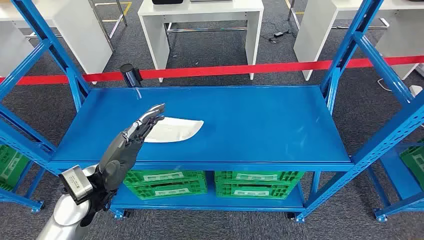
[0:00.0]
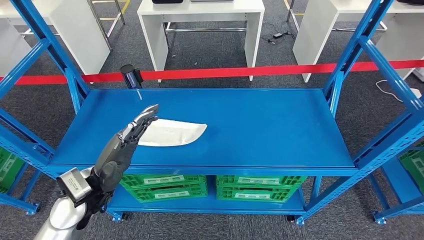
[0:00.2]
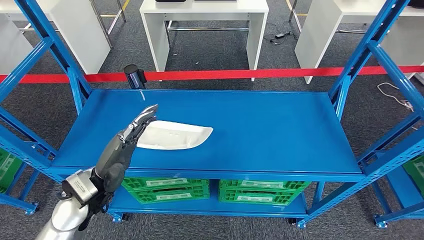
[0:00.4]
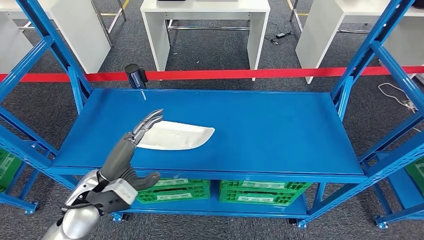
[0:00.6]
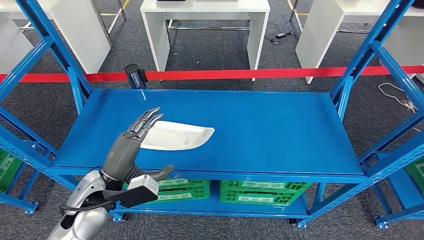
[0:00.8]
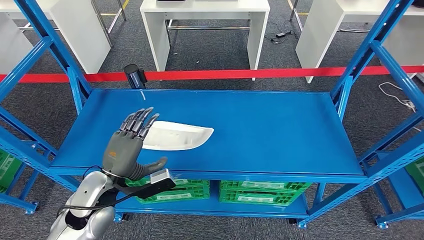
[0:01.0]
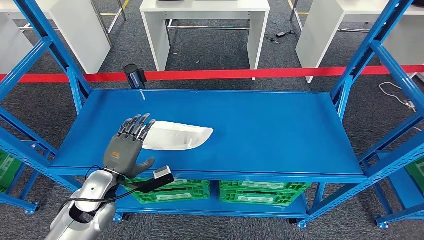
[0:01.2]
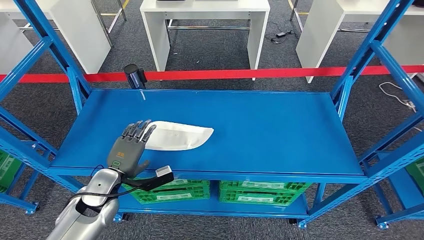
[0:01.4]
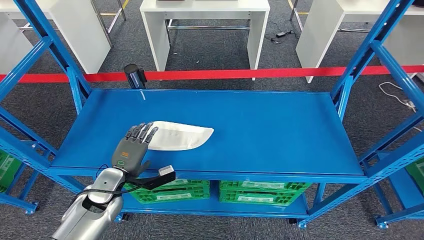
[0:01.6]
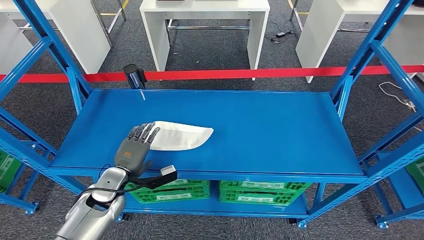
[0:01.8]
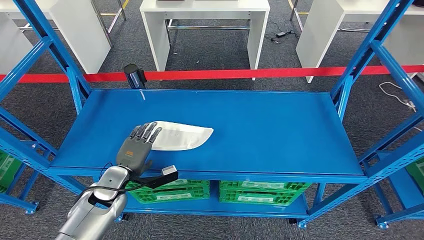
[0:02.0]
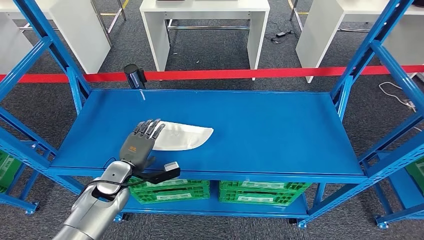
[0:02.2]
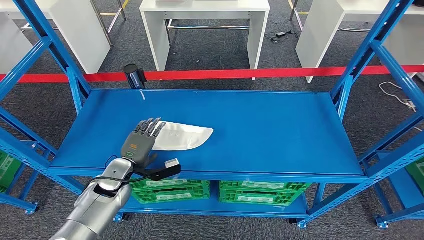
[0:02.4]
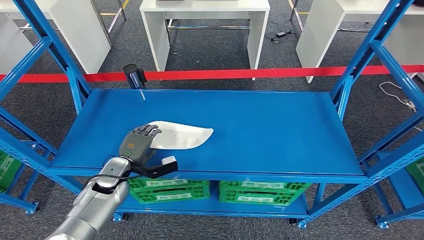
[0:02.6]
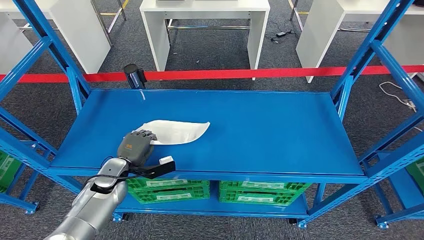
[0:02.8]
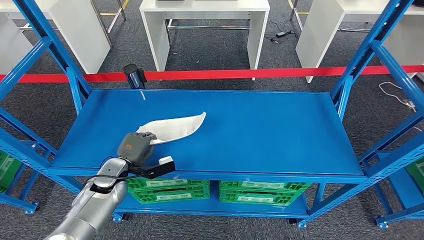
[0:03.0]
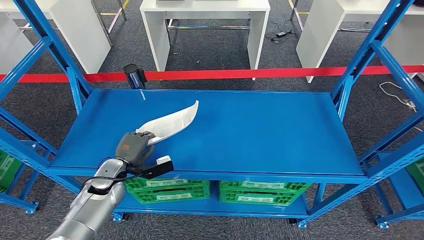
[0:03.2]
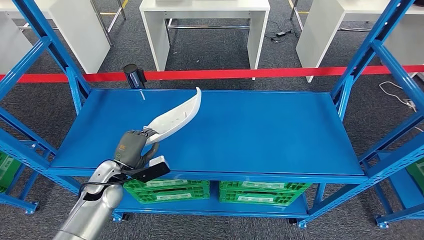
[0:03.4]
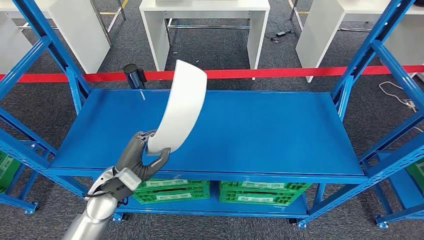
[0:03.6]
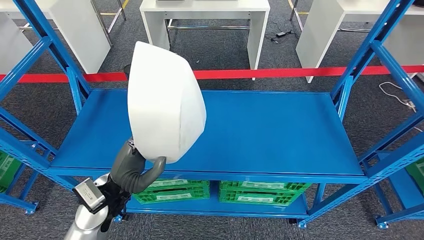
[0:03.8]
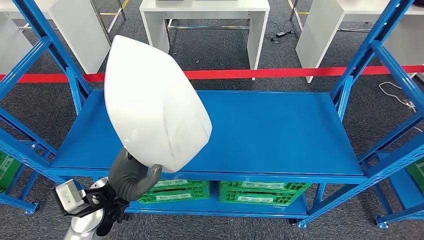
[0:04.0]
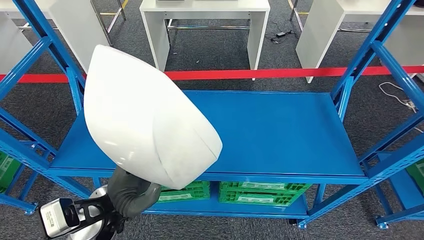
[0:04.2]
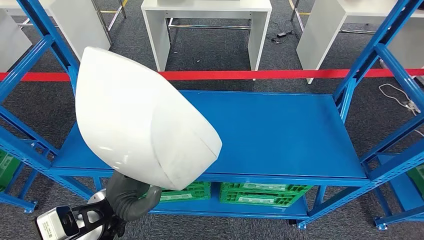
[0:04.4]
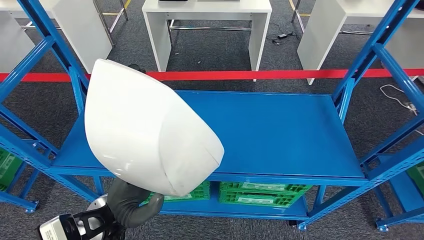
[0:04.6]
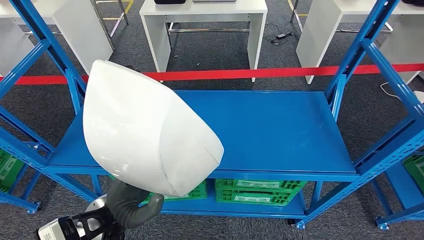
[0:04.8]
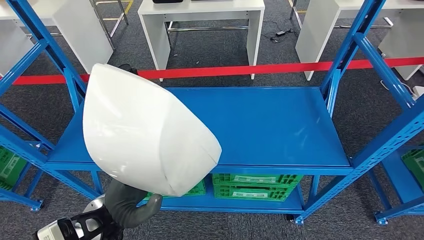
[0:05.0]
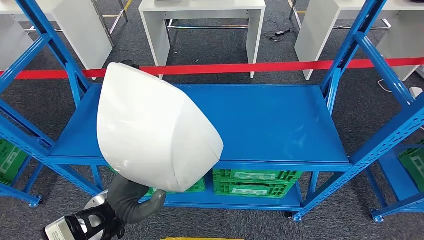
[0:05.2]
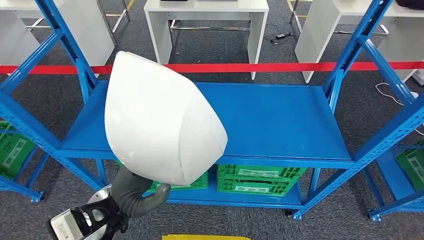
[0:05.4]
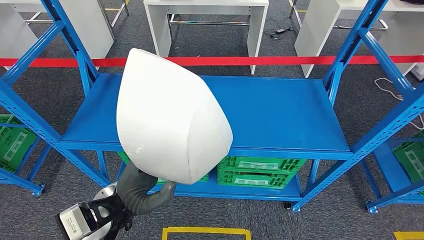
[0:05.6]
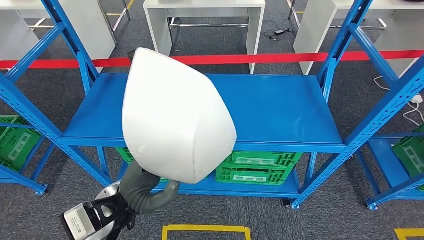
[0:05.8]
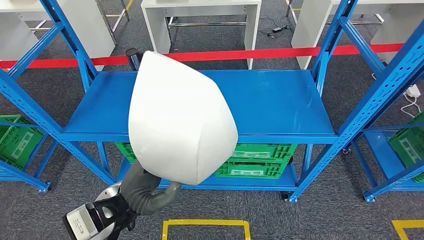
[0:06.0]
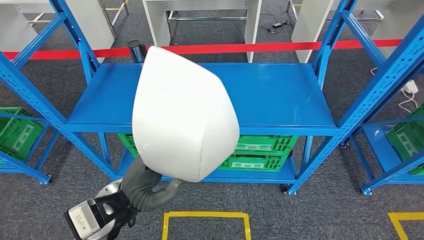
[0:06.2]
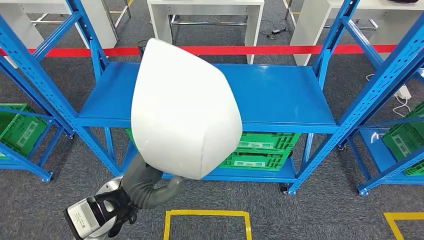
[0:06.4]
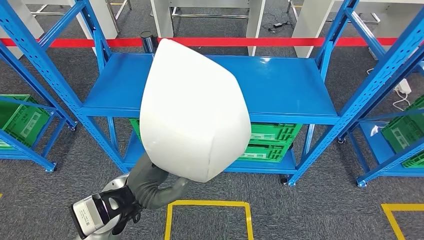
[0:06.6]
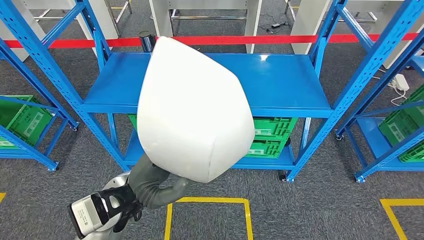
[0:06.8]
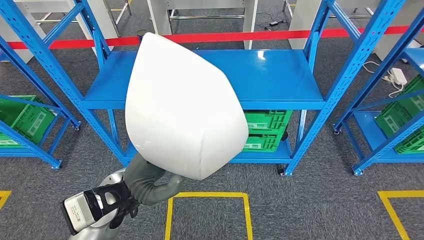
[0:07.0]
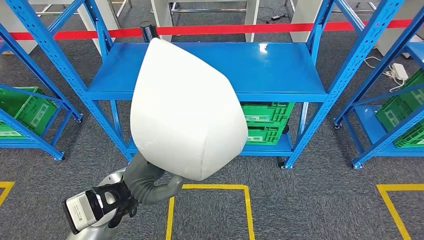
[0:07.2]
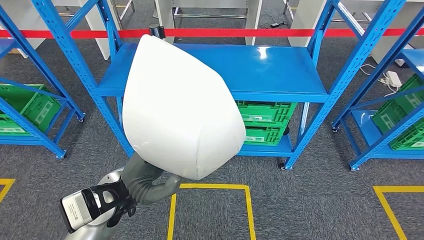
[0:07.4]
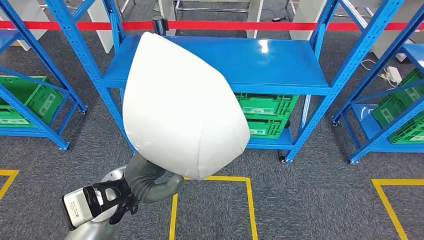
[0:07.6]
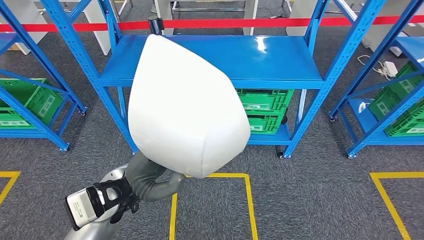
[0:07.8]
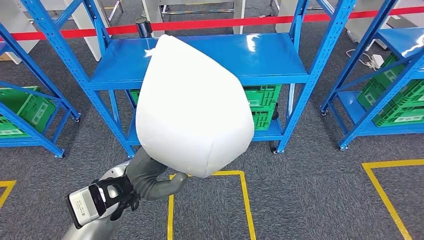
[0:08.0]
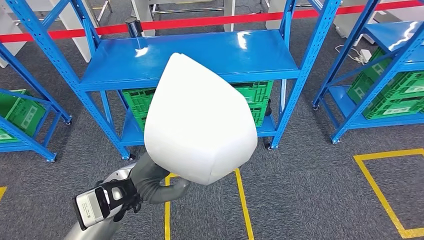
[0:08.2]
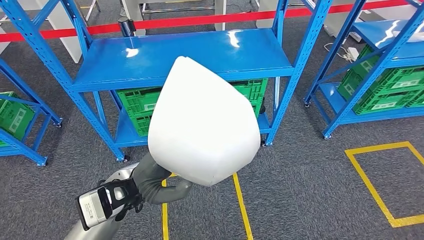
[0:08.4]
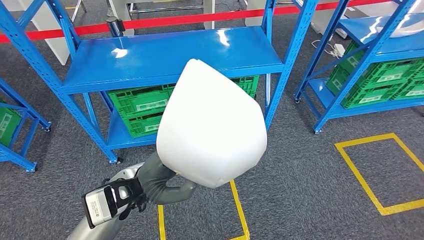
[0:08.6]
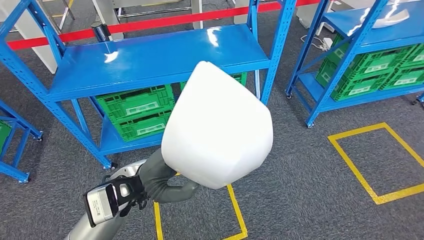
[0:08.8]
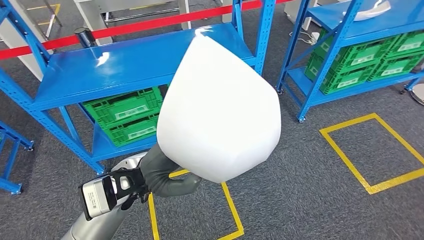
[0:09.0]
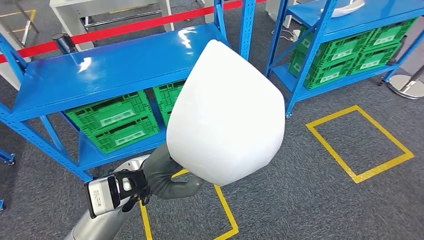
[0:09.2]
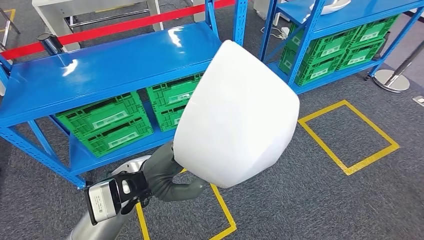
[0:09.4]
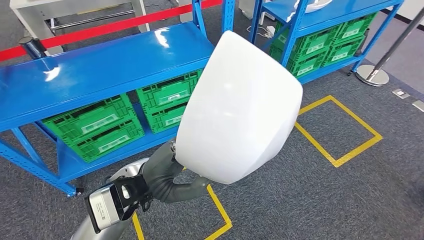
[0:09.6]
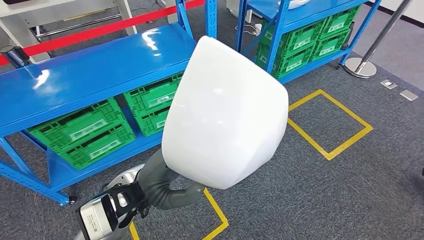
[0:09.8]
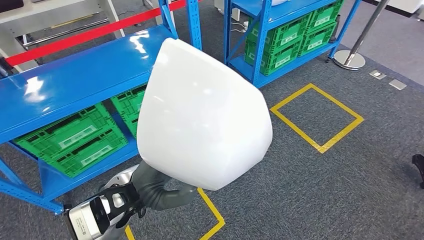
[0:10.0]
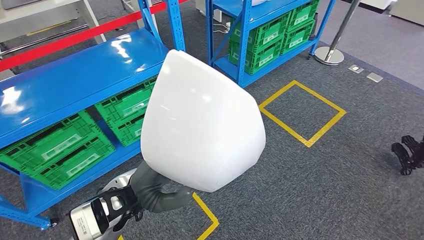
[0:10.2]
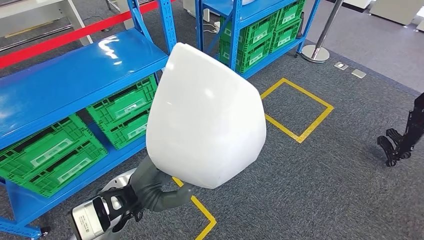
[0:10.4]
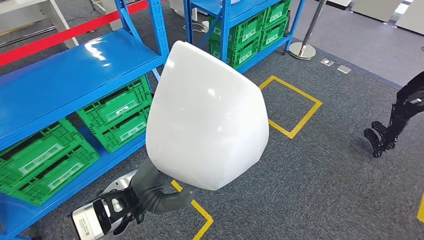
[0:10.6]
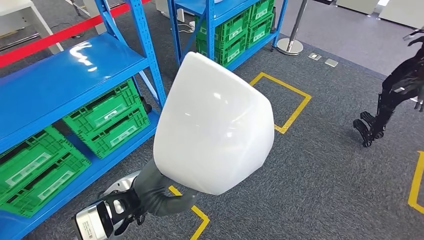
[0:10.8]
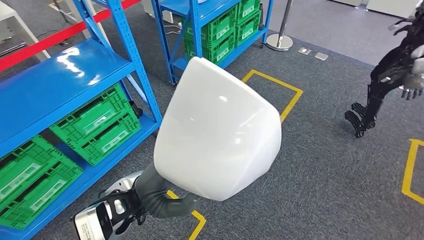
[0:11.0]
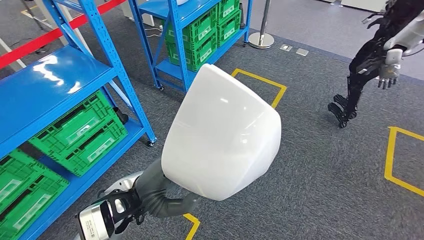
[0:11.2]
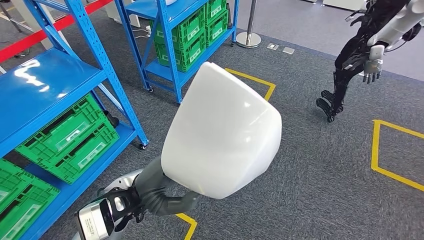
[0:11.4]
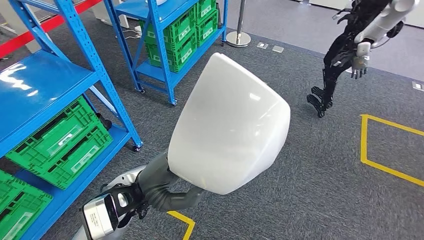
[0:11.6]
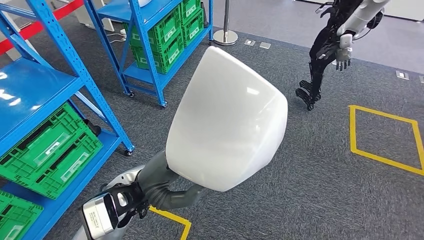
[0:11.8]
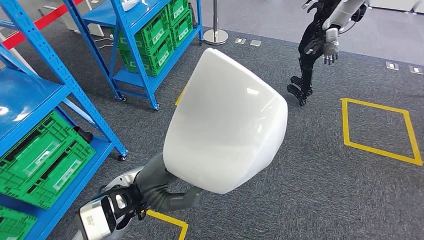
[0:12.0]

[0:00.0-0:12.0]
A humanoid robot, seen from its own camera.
Step, 0:00.0 to 0:05.4: Pick up the small component from the shelf.
0:01.6 to 0:03.0: The left hand changes place by approximately 5 cm.

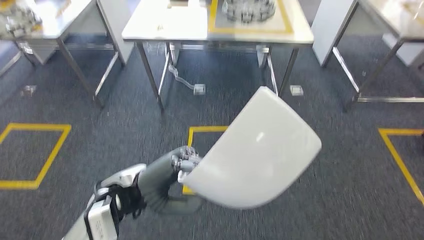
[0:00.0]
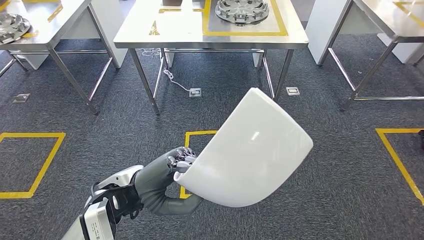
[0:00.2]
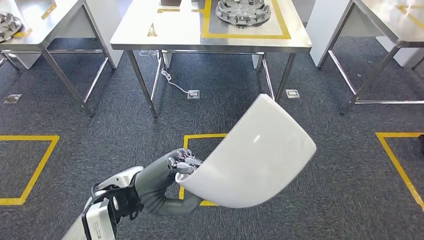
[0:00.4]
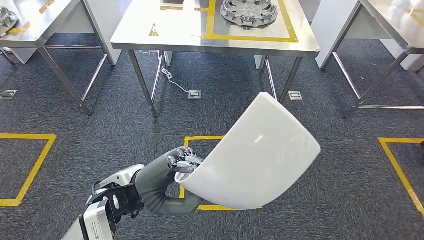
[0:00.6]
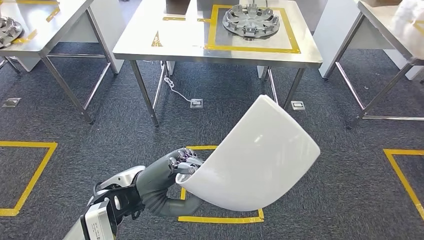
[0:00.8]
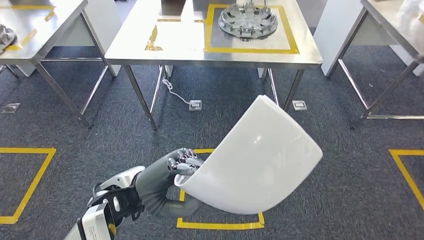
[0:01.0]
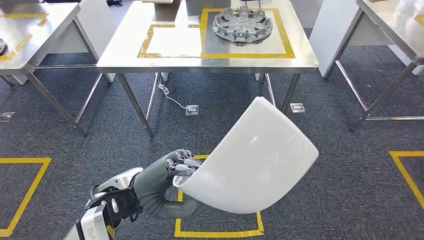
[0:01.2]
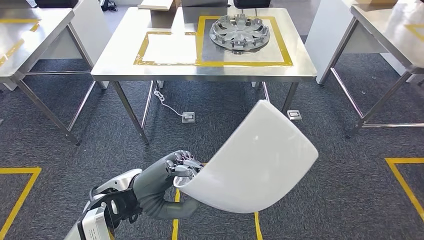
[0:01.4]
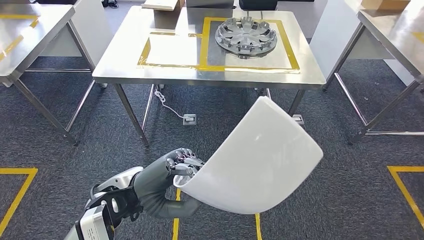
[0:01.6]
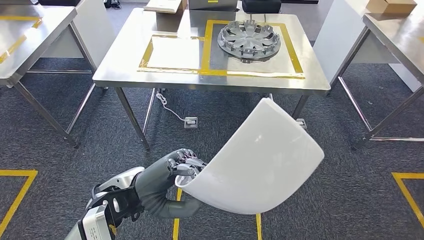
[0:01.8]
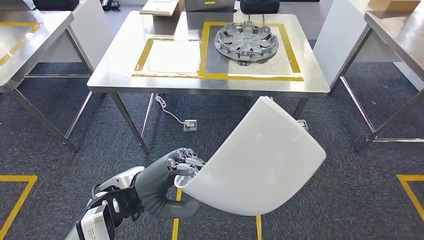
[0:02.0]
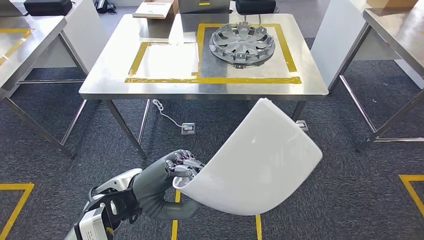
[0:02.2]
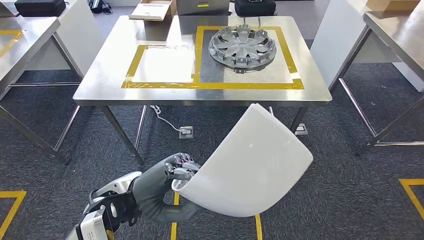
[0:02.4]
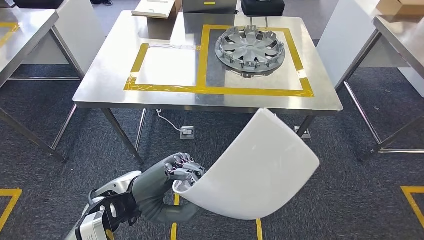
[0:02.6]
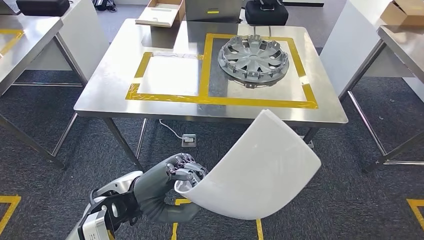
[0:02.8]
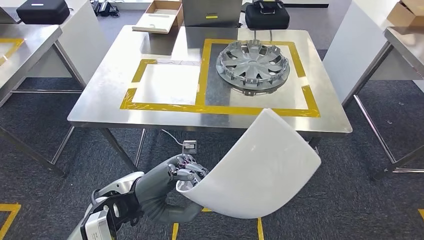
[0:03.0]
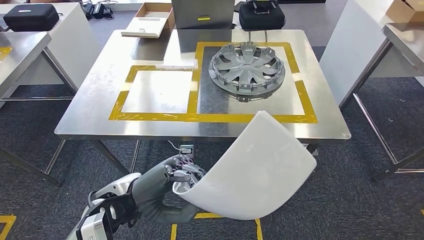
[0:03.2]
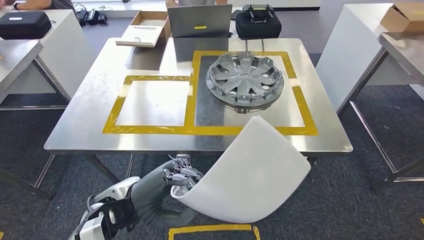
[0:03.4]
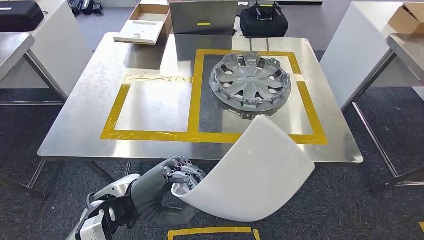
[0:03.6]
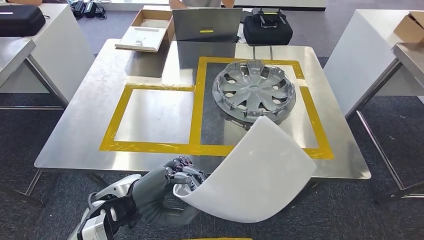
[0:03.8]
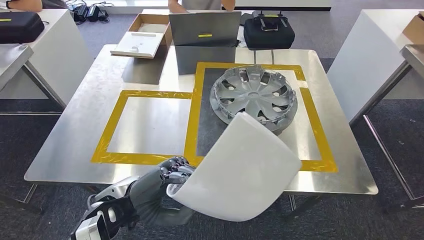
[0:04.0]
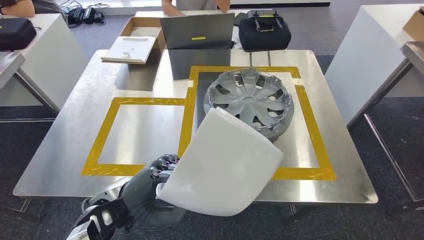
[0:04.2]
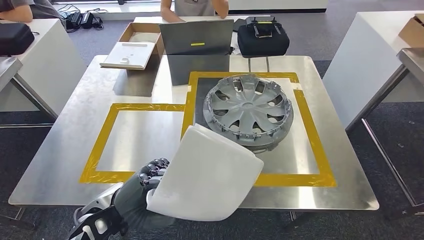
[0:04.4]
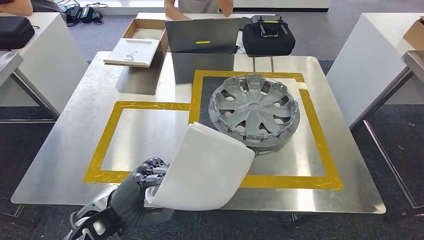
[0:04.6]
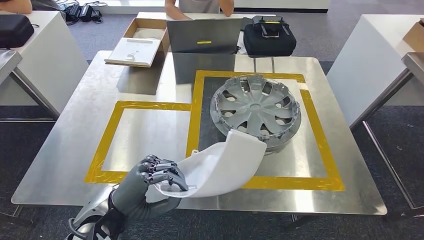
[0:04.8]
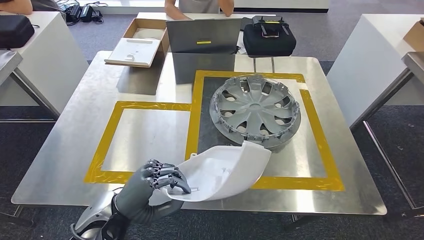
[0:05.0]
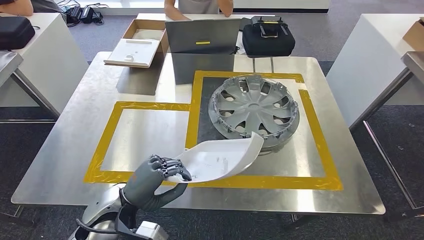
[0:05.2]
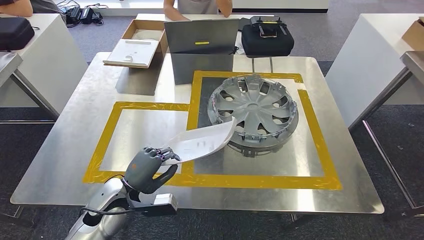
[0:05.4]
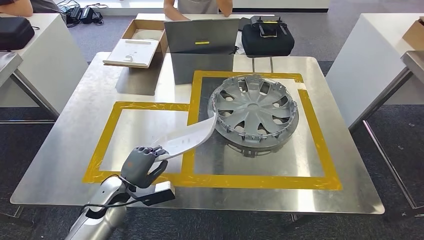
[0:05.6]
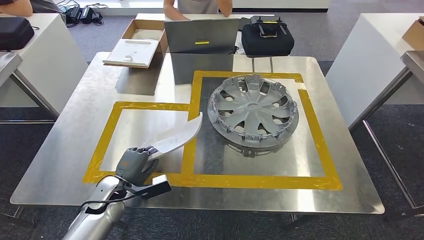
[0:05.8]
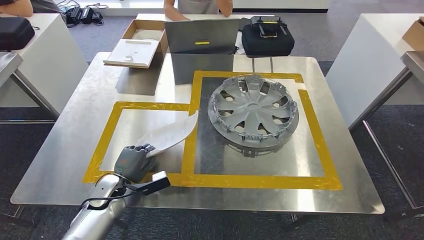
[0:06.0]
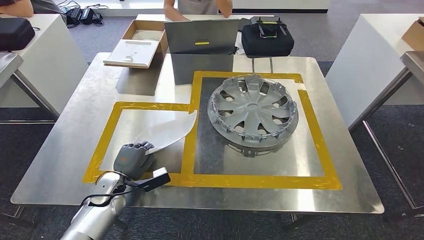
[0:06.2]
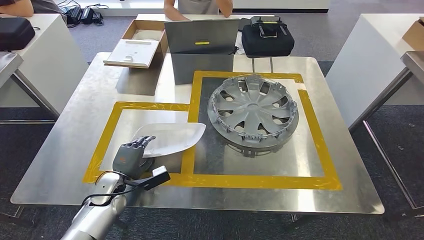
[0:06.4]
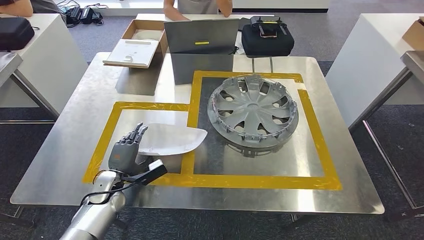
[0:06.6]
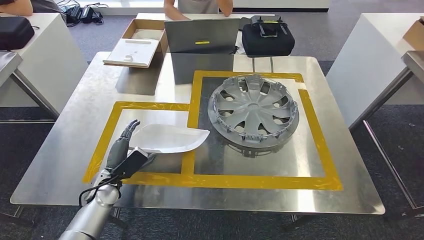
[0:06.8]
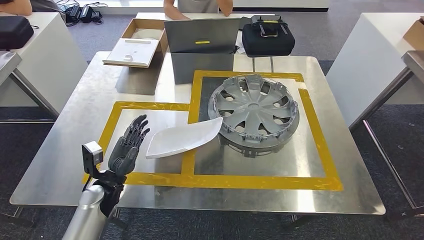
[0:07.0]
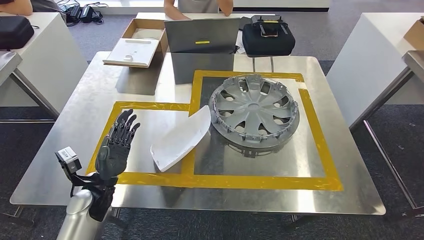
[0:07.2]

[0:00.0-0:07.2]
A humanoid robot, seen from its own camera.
Step, 0:00.0 to 0:03.6: Move the small component to the workbench.
